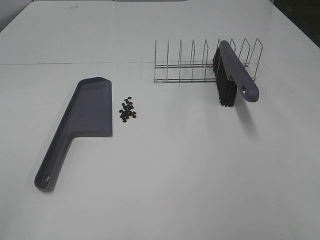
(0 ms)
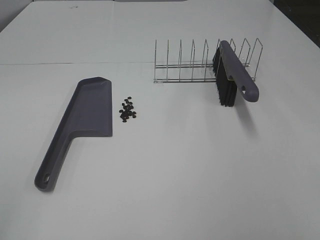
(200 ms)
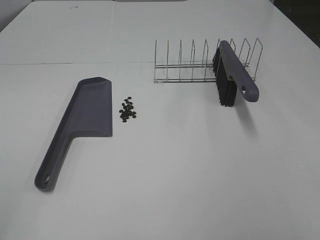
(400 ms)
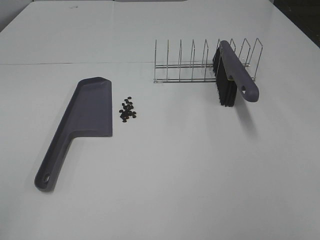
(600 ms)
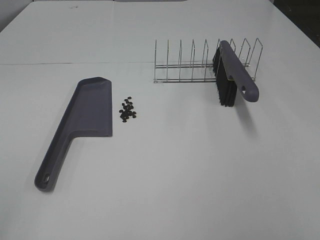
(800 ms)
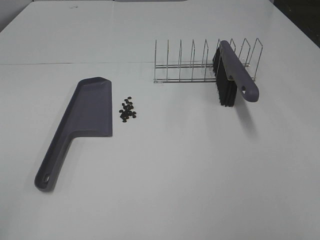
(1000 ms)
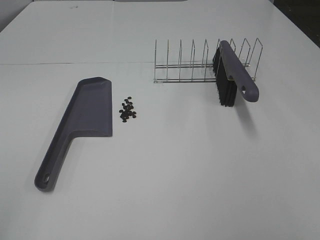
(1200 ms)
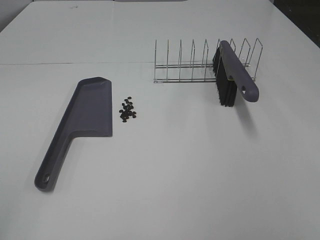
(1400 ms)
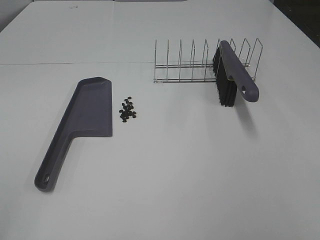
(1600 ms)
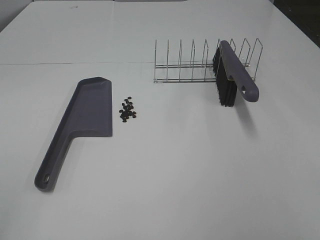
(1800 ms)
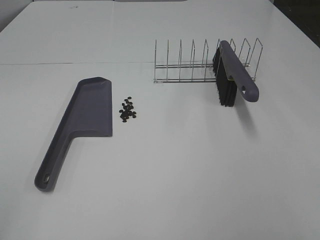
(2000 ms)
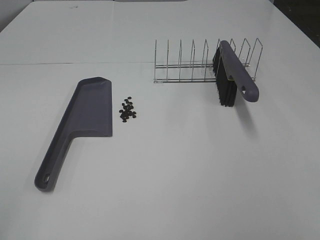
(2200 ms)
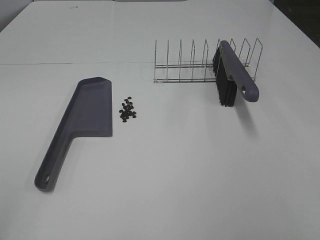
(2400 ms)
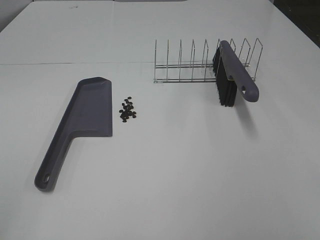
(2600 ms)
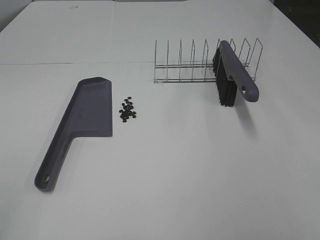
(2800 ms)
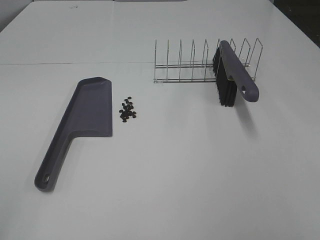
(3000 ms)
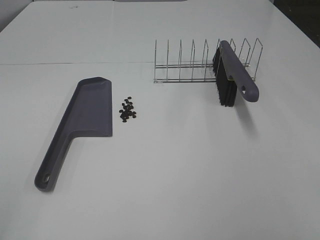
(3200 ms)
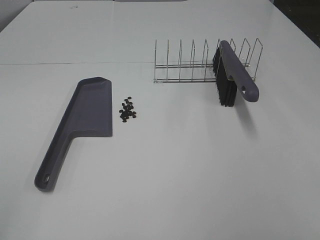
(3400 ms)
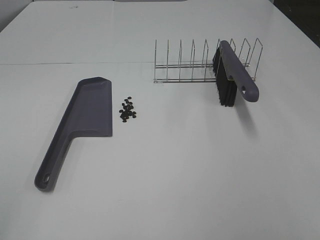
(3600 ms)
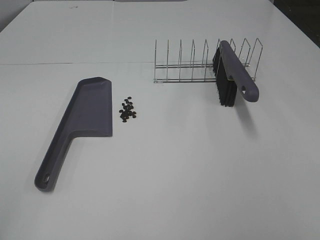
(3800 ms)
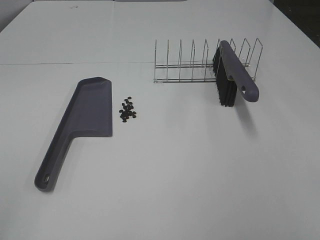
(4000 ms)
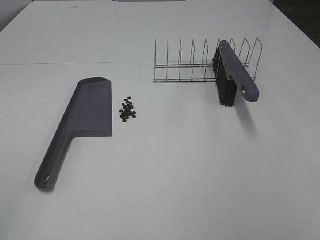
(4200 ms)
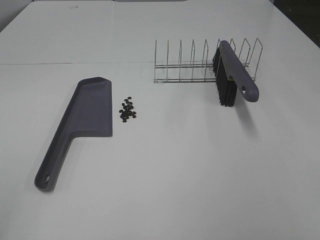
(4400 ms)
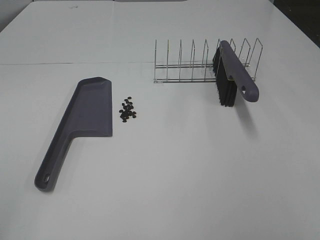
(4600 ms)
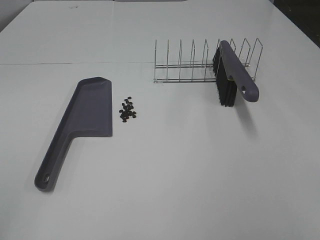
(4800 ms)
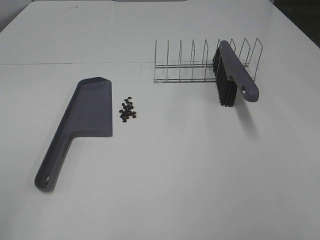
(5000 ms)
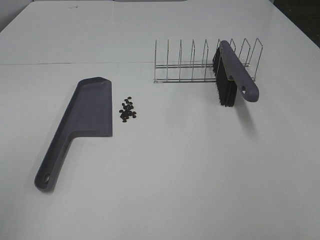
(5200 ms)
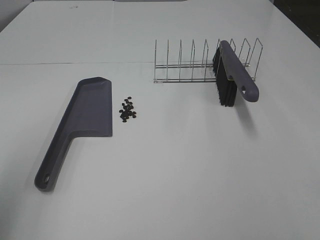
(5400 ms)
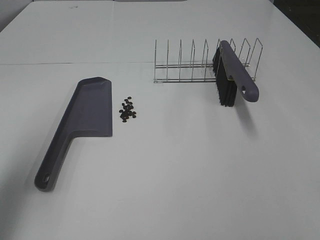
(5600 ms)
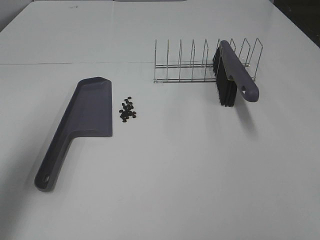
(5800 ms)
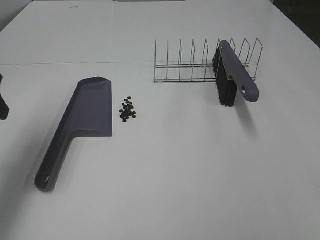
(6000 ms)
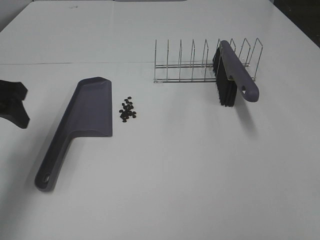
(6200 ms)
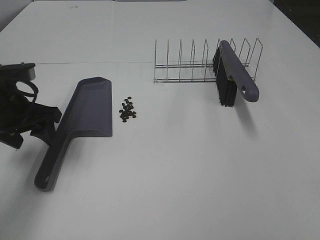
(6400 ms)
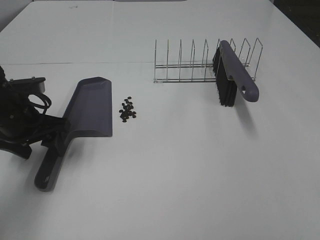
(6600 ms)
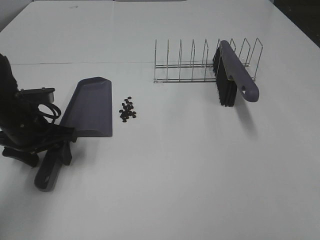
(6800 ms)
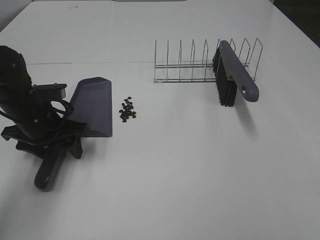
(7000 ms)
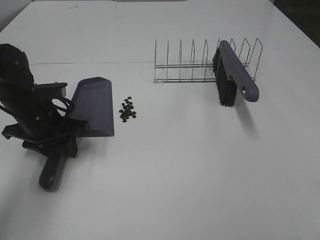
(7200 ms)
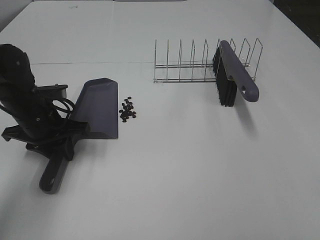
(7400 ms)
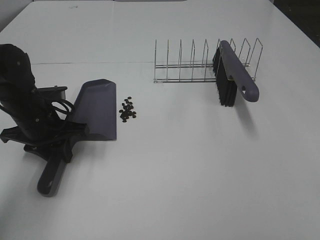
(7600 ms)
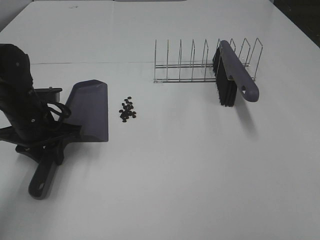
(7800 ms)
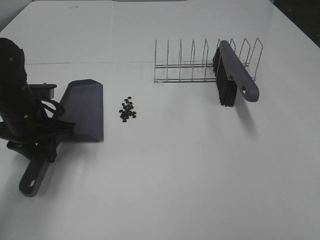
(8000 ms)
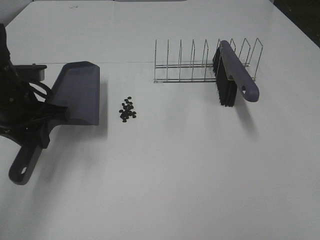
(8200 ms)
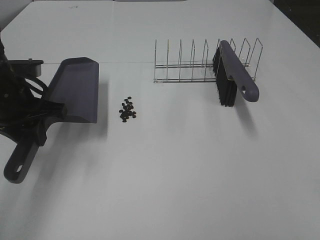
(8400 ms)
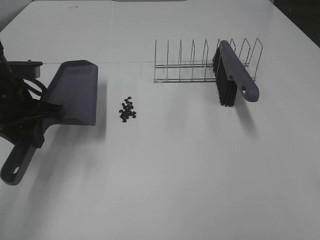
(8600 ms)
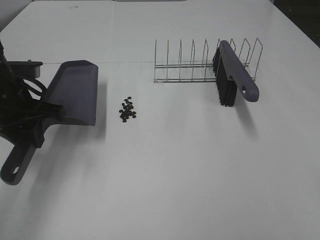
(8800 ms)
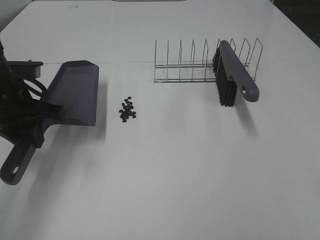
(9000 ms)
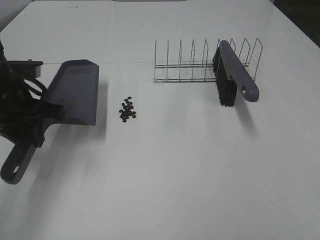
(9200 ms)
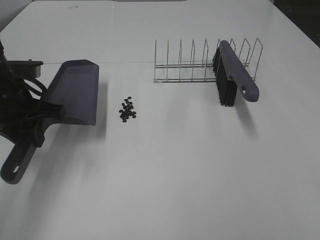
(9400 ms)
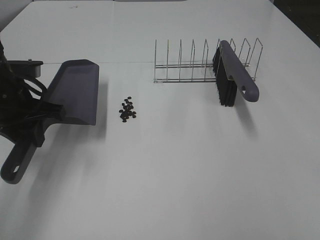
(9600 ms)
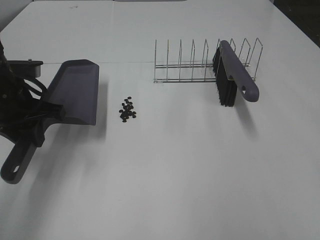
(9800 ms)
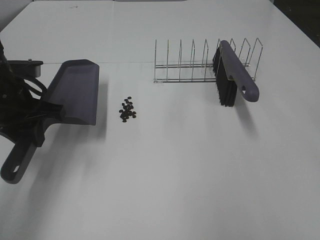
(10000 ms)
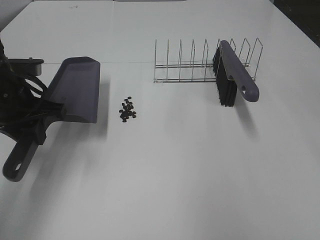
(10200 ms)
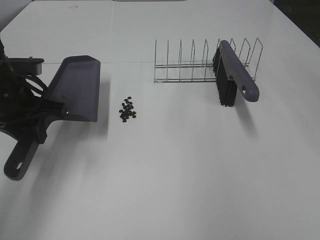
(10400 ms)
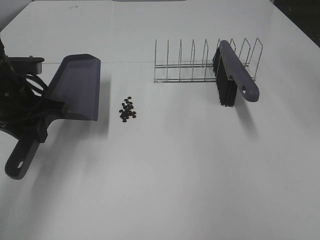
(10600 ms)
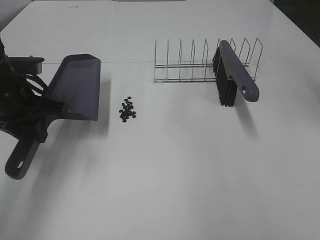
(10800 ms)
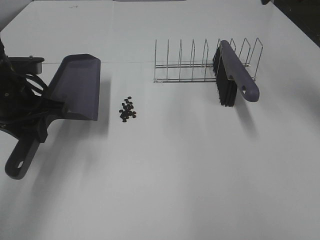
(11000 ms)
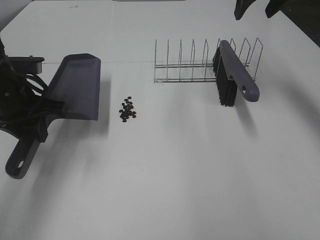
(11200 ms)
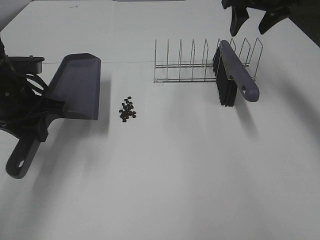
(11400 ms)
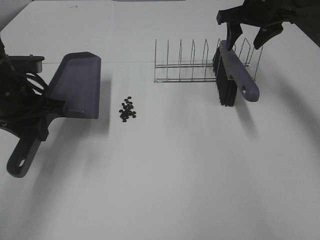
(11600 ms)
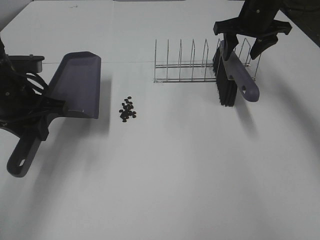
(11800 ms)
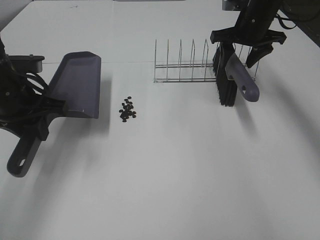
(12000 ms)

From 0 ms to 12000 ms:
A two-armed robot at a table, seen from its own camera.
Task of the whole recording: Sweep Coffee Bean.
Step, from 0 ms to 7400 ms: Left hand: grab the dustpan.
From 0 ms to 4400 ms: Both grippers stay about where they are.
From 4400 ms to 6000 ms: The left gripper moves forward, some 30 cm.
From 6000 ms to 7600 ms: The left gripper goes about 15 cm downward and to the right, and closes its fingers.
From 7600 ms to 9000 ms: The left gripper travels upward by approximately 5 cm.
From 10400 ms to 12000 ms: The right gripper is displaced forward and downward by approximately 30 cm.

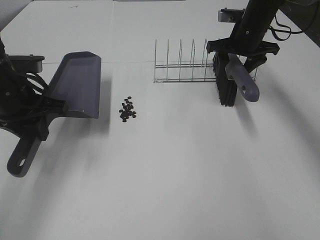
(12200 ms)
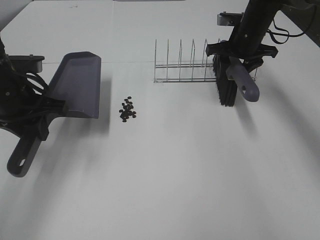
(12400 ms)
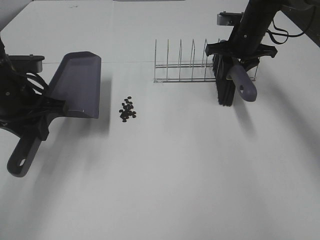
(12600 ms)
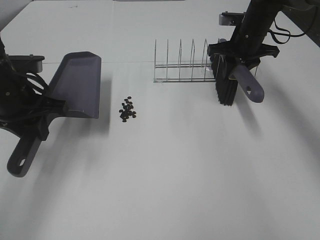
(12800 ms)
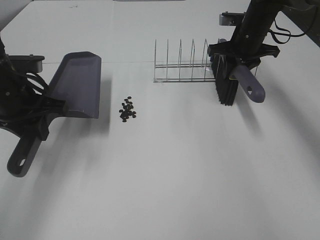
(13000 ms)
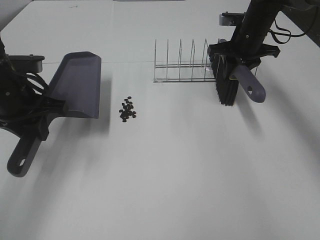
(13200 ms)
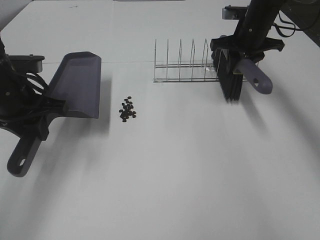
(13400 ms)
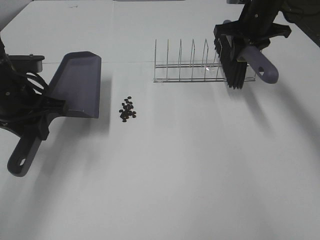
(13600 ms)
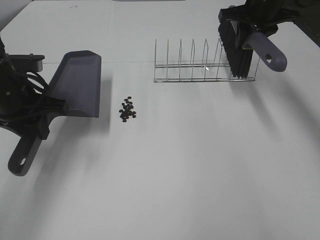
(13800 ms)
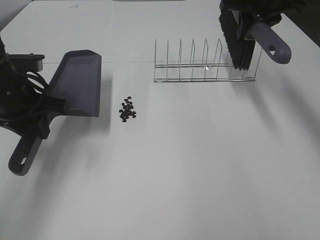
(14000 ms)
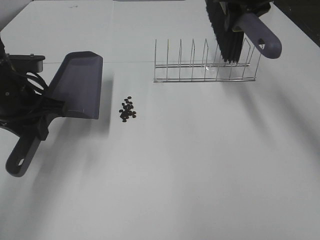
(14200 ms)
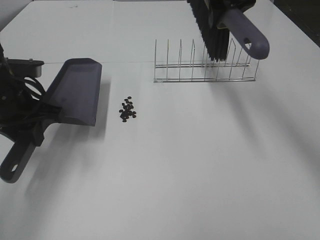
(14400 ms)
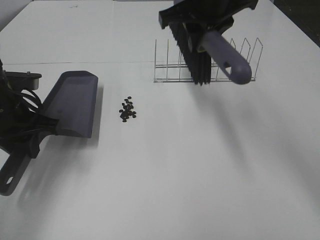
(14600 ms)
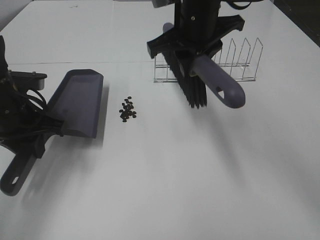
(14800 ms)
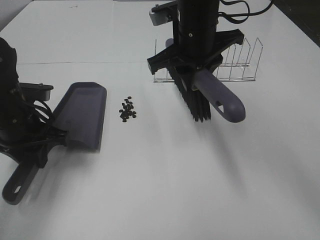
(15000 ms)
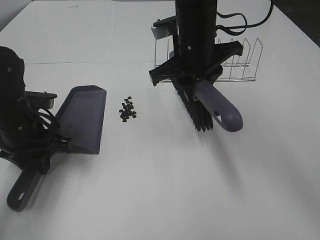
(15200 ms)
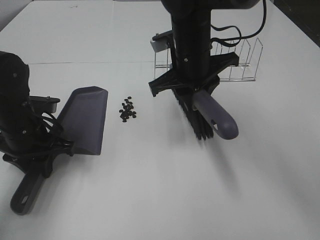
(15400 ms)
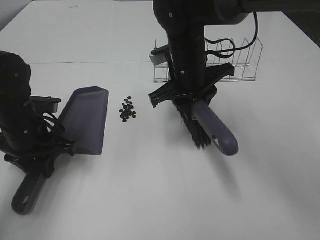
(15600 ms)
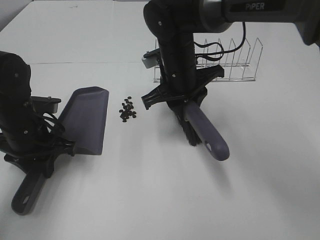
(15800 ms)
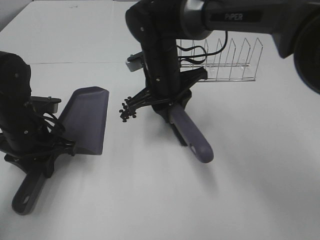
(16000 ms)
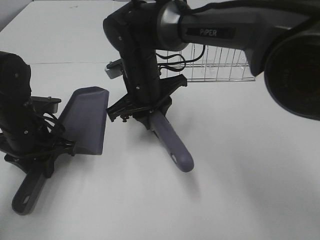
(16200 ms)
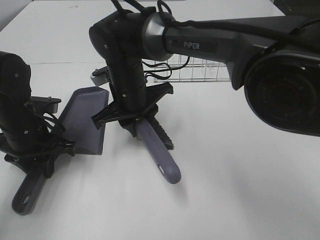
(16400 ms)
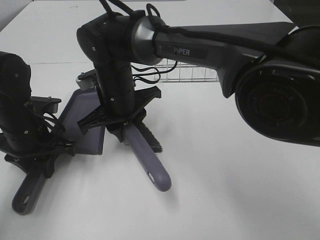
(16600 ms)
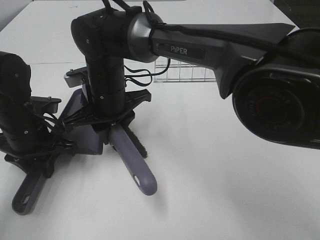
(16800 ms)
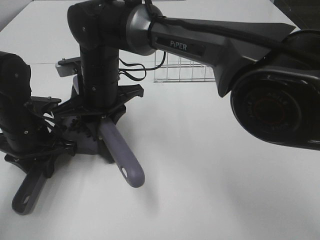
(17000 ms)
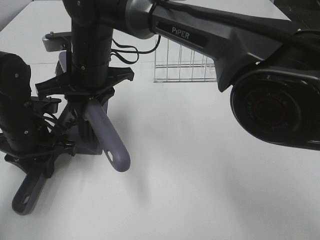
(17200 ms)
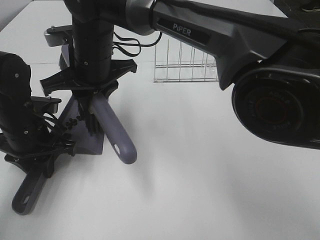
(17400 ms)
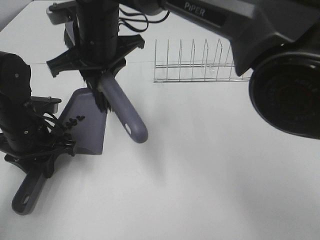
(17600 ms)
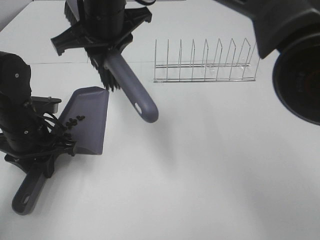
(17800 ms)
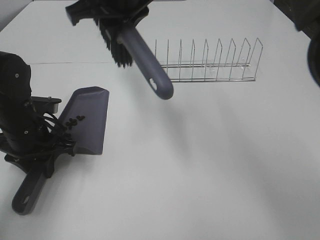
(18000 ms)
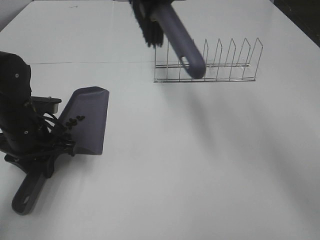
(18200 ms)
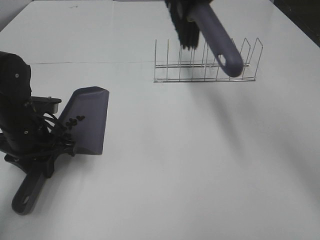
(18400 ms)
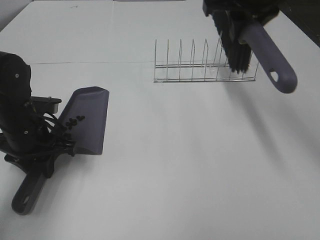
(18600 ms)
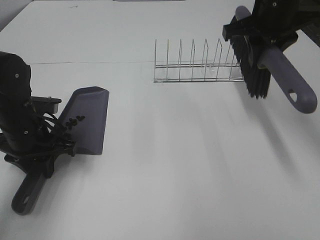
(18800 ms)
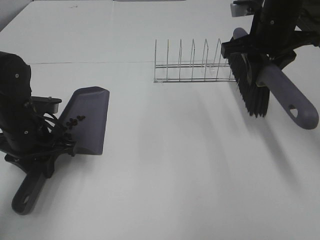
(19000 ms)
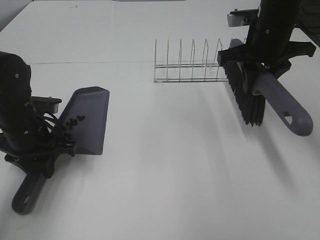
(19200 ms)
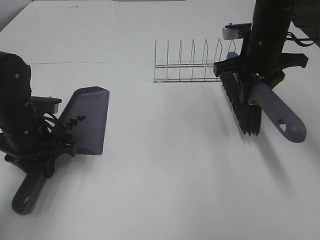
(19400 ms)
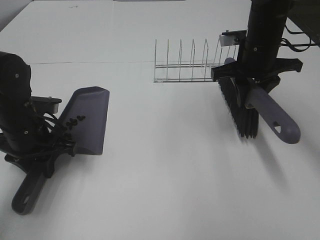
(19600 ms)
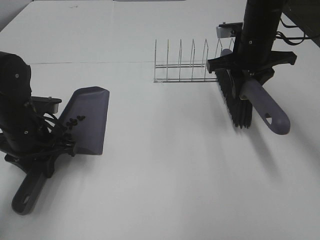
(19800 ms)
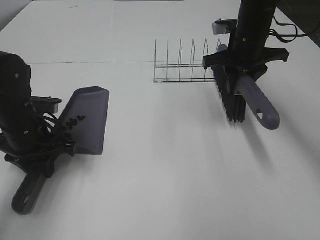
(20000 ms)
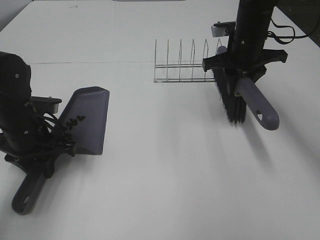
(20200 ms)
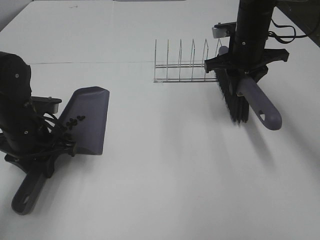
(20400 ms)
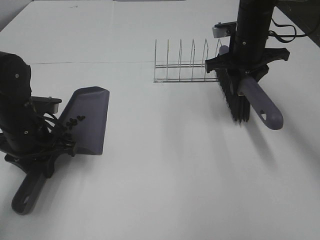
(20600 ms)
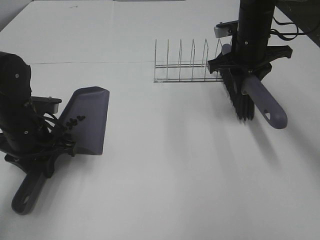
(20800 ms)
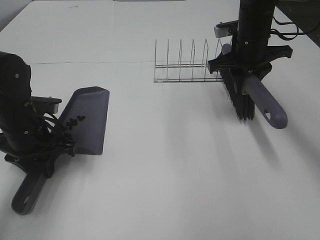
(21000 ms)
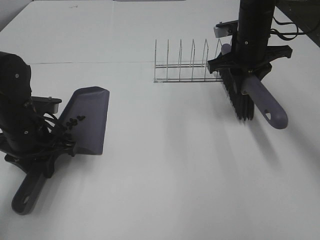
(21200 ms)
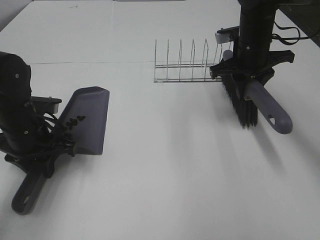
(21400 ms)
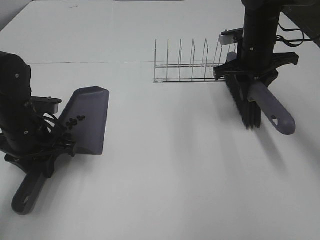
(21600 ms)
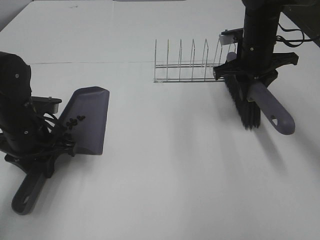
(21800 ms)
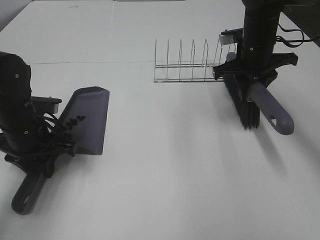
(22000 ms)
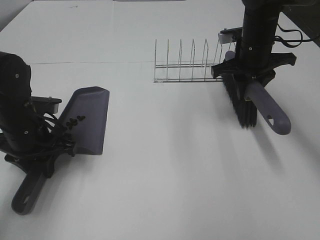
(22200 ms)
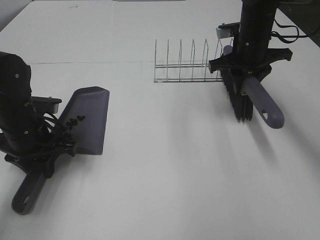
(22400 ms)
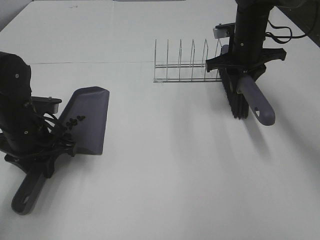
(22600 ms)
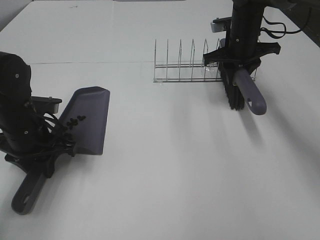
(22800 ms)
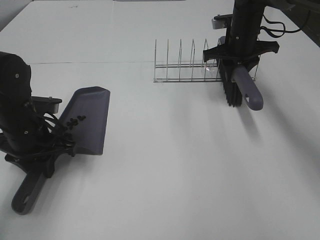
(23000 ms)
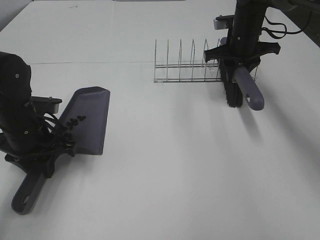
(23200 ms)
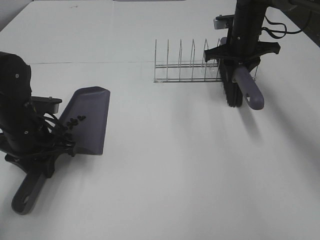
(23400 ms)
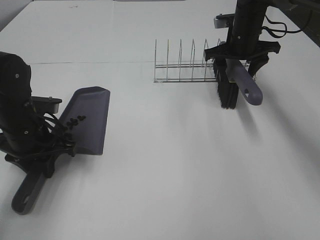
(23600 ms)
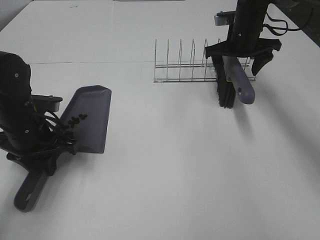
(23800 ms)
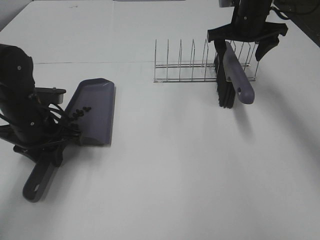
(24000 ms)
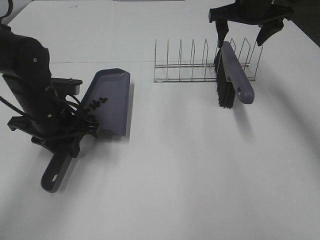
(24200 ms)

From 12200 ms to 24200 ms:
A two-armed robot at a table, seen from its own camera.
Task of the whole recording: Sweep Coffee Bean.
Step, from 12200 ms to 15400 ms: Left hand: move the dustpan to the left side of the coffee beans.
Step, from 12800 ms to 17200 ms: Right hand:sweep the coffee beans into the dustpan.
Step, from 17400 ms to 23600 ms: Right hand:place the broom on the rack.
From 12200 ms to 13800 ms: The right gripper heads upward, covering about 10 cm, and closes its fingers.
From 13800 ms to 15200 ms: The right gripper heads to the left and backward, covering about 20 cm, while the left gripper is displaced downward by some 5 cm.
From 15200 ms to 16600 ms: The right gripper moves to the left and downward, about 15 cm.
From 16600 ms to 18200 ms: The right gripper moves upward and to the right, some 25 cm.
From 18200 ms to 19800 ms: The right gripper is displaced to the right and downward by approximately 20 cm.
From 19800 ms to 22600 ms: There are only small adjustments of the grippers.
From 22600 ms to 24200 ms: The left gripper changes place by approximately 5 cm, while the right gripper shifts approximately 10 cm upward, and opens its fingers.
